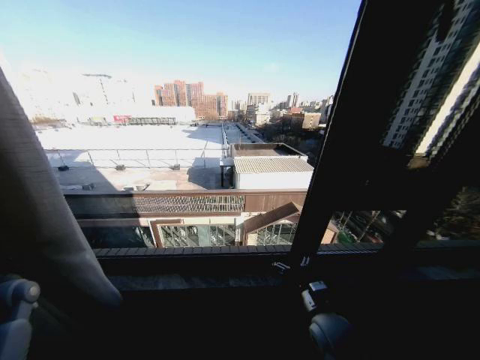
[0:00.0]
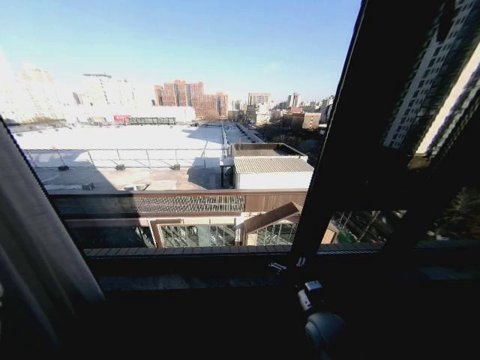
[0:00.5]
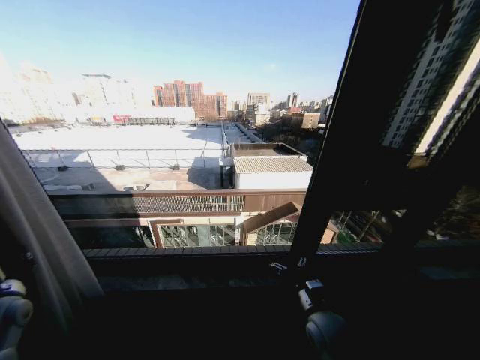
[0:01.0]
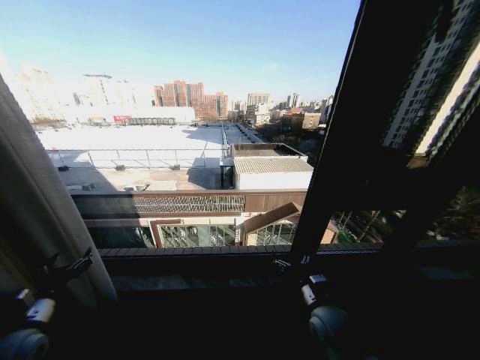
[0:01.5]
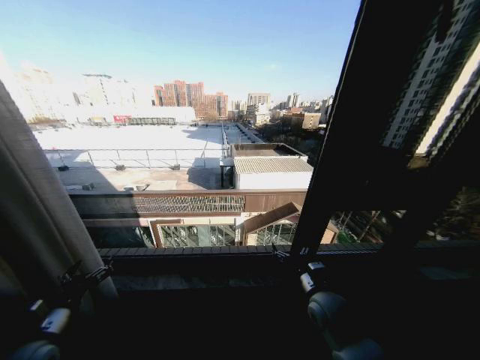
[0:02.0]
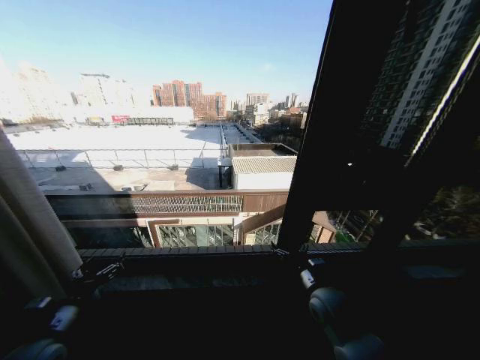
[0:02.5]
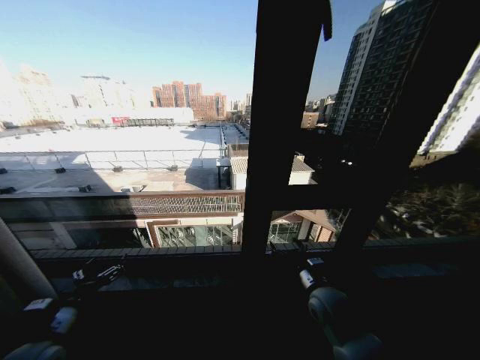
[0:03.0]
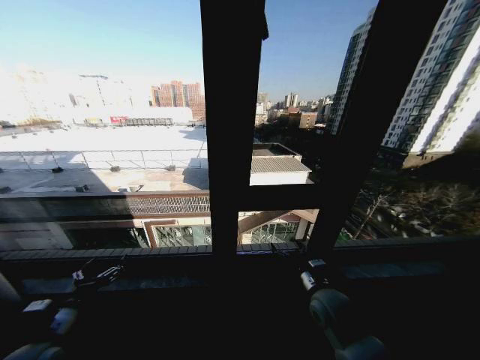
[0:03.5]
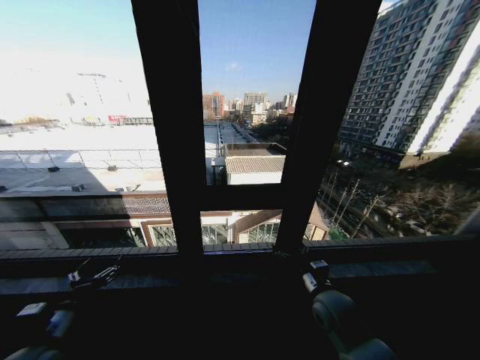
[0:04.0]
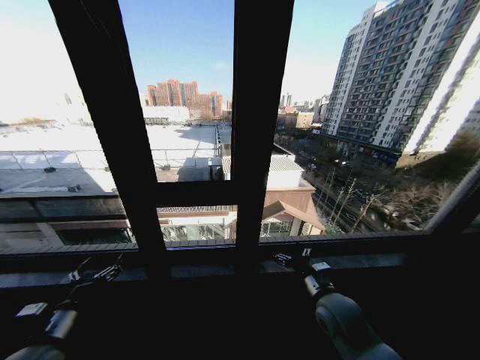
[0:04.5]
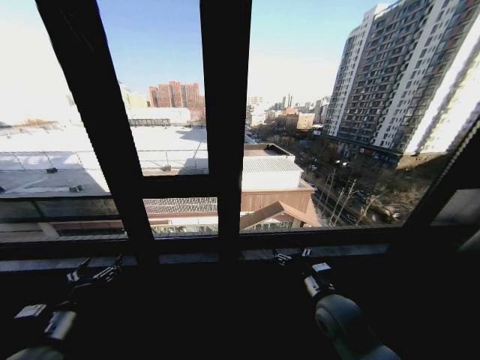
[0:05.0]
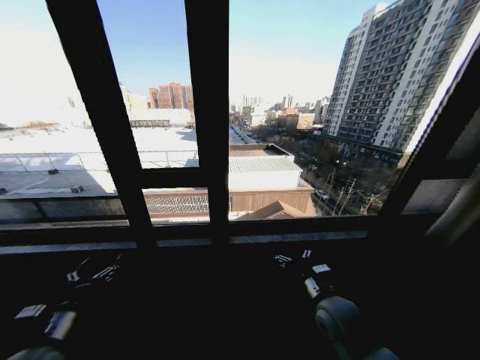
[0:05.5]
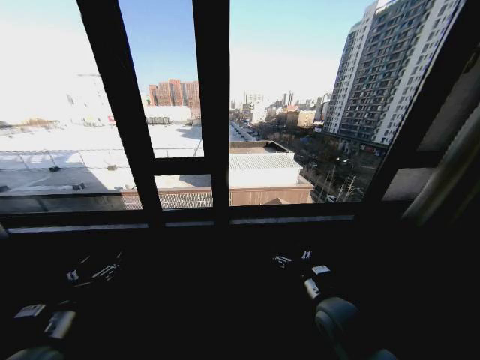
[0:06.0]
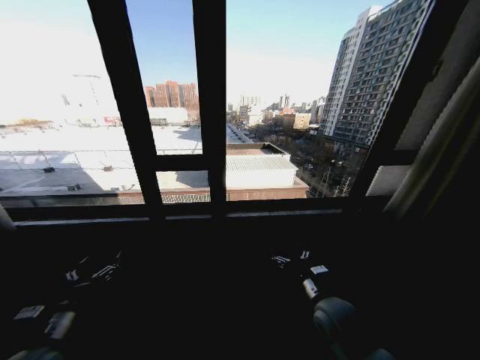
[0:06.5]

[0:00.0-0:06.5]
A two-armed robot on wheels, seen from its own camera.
Task of the whole recording: Open the curtains by pulling them apart, changing their state from closed to fully open.
0:00.0 to 0:02.0: The left gripper shifts roughly 20 cm to the right and backward, and opens.

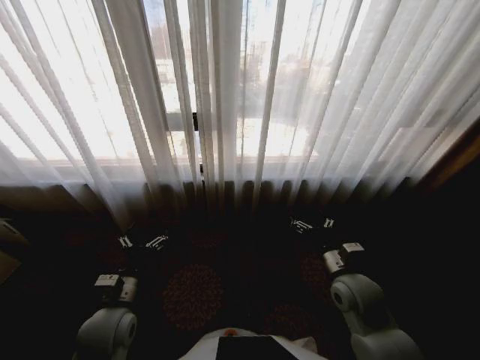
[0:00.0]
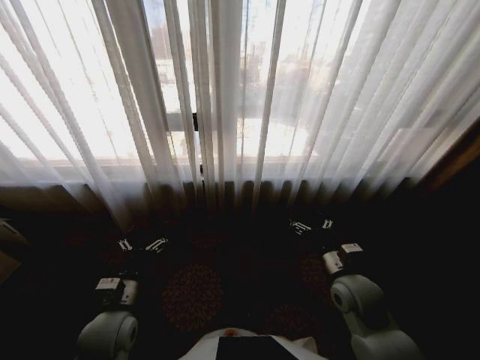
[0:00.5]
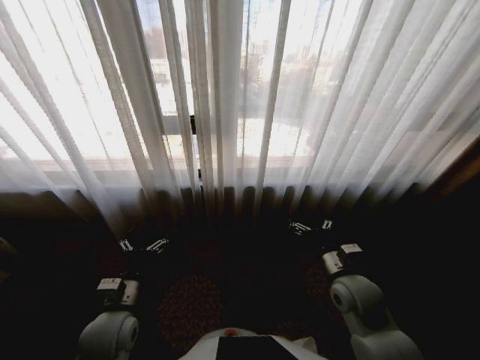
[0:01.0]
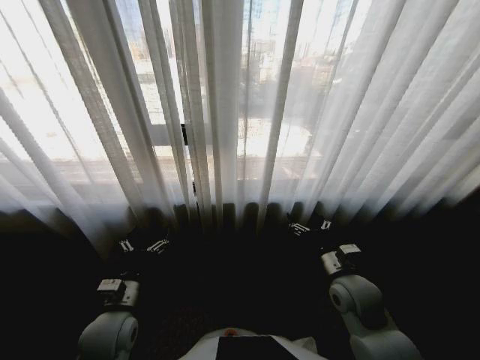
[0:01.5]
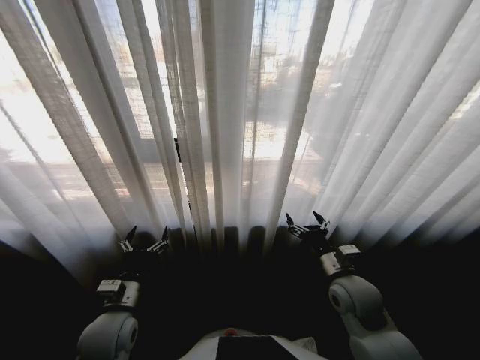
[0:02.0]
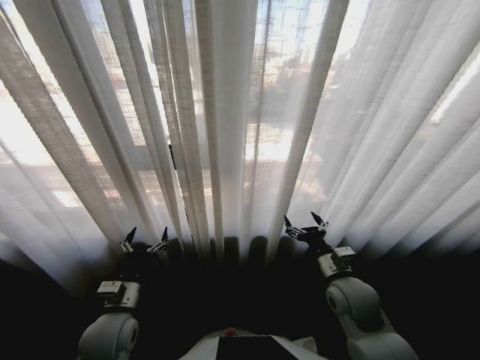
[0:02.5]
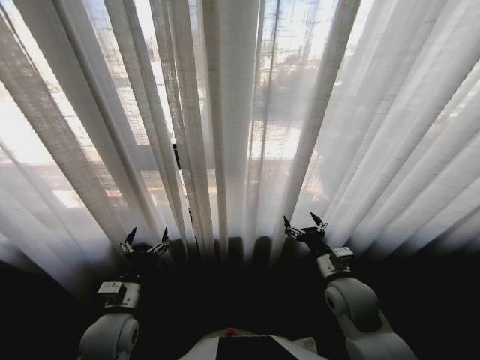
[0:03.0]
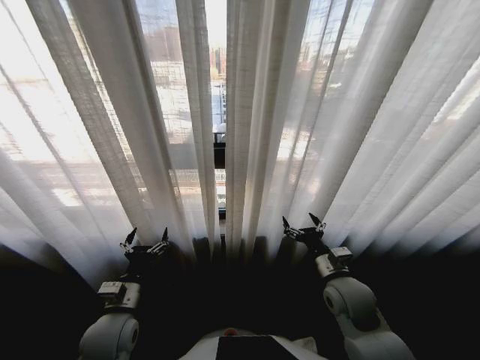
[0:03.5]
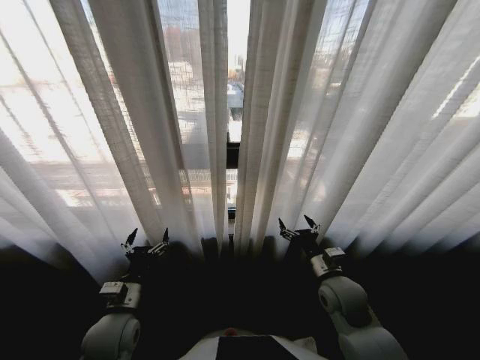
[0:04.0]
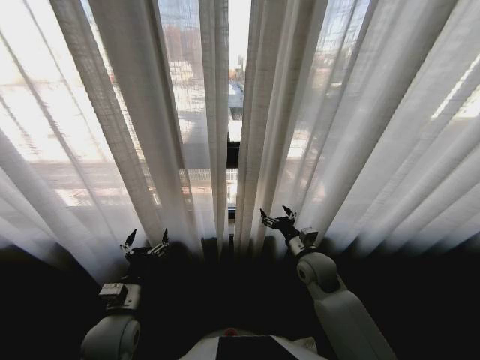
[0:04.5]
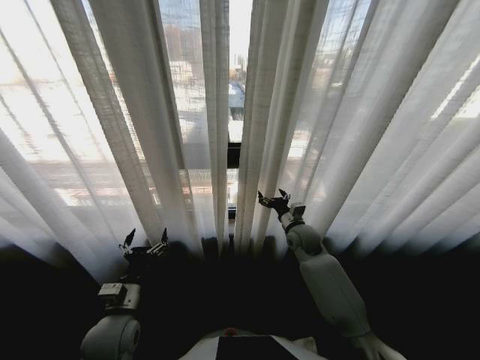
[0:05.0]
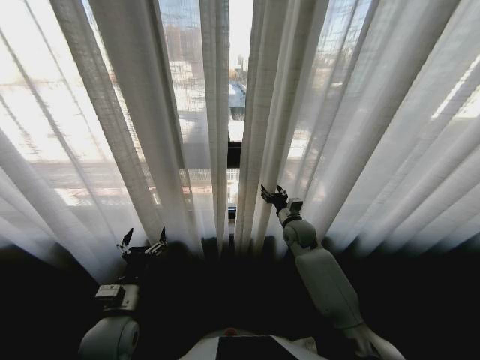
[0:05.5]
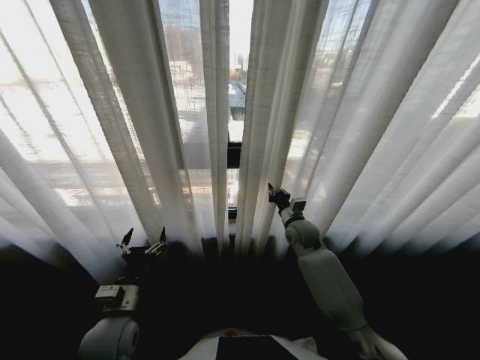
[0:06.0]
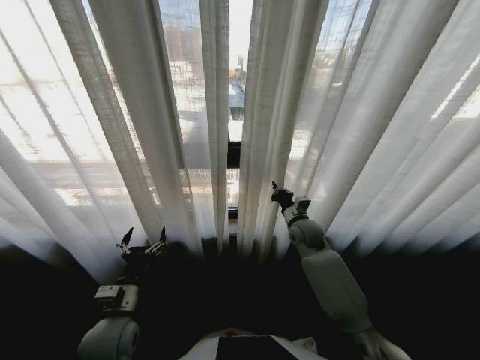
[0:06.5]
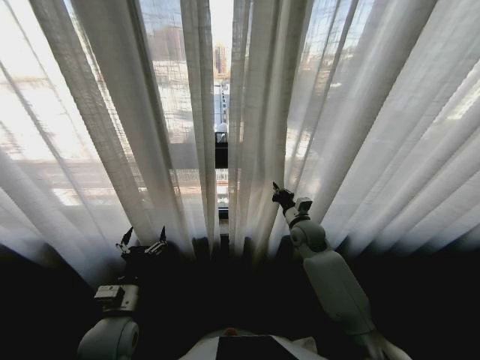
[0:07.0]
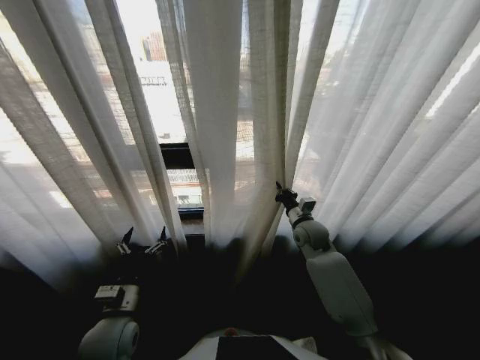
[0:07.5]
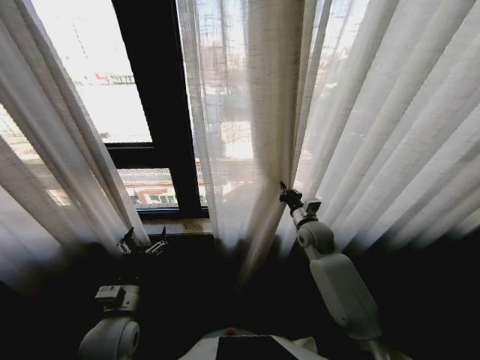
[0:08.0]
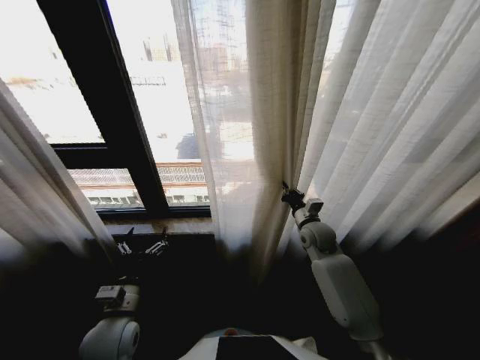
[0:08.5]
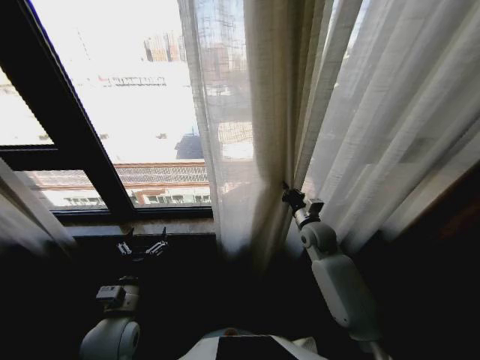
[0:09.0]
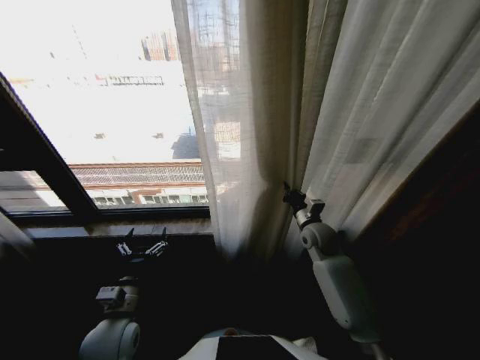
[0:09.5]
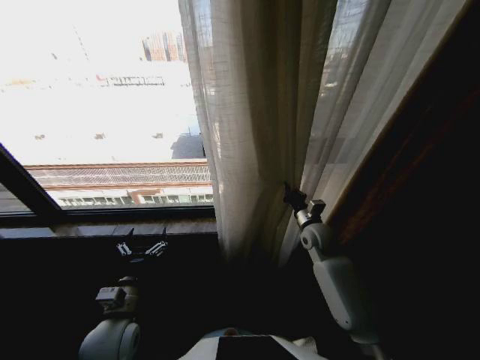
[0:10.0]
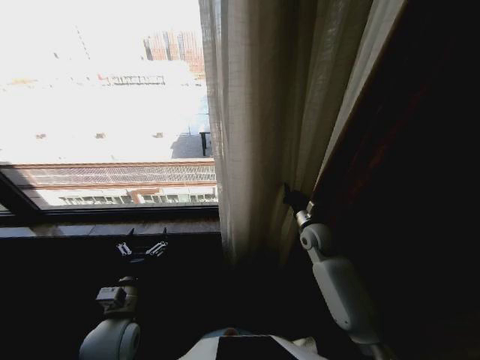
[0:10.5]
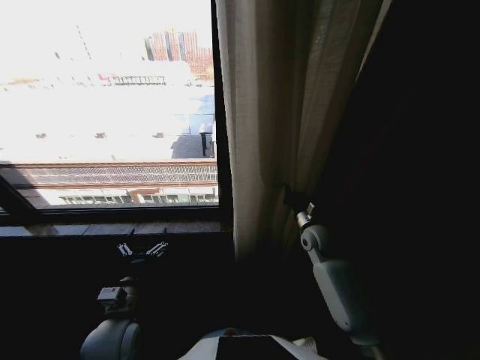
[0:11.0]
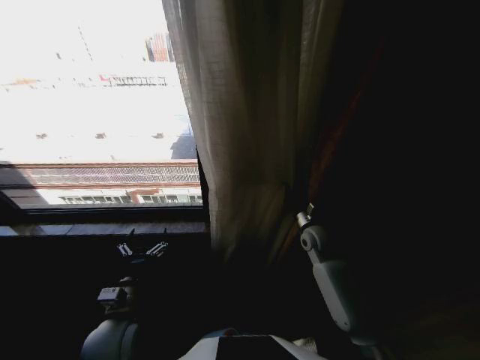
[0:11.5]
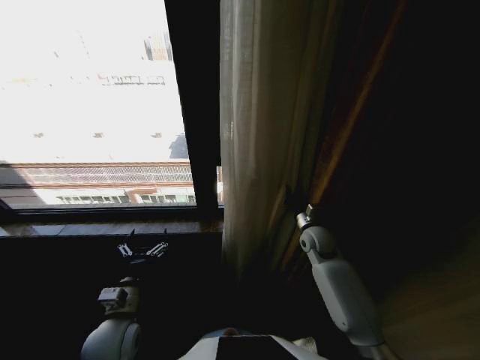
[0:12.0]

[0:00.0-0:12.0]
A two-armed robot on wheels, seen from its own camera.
Task of the whole recording: Open the curtains by pulling them apart, changing their state from closed to fully open.
0:04.0 to 0:06.0: The right gripper is displaced forward by some 20 cm, and closes up.

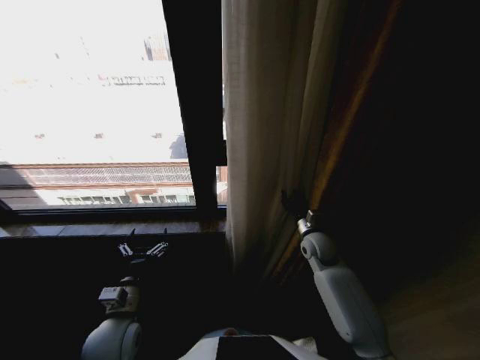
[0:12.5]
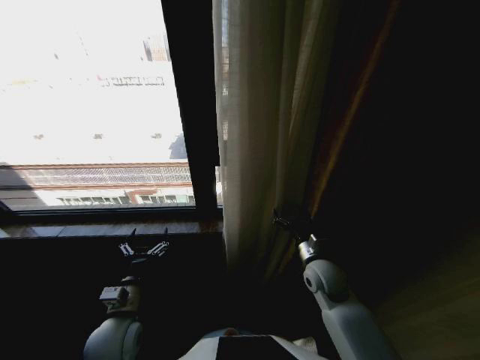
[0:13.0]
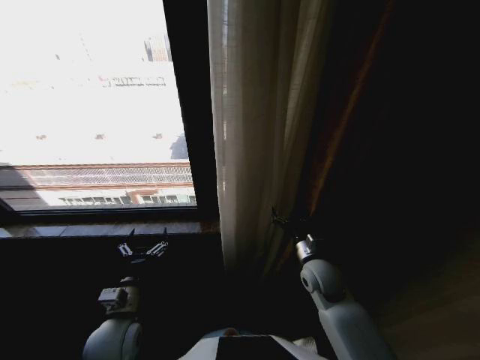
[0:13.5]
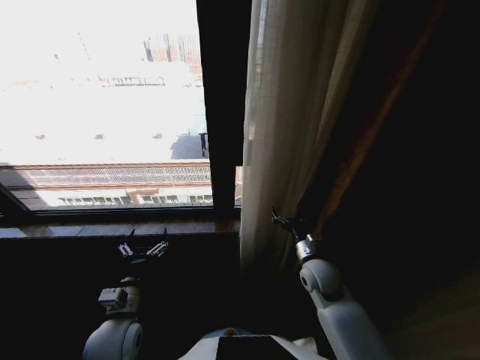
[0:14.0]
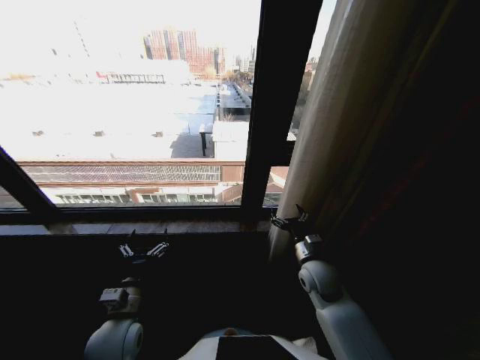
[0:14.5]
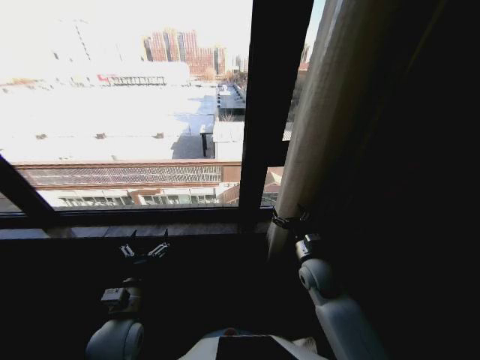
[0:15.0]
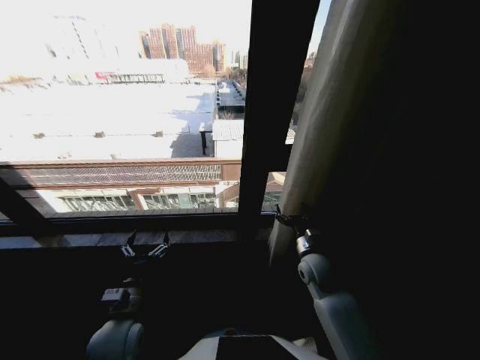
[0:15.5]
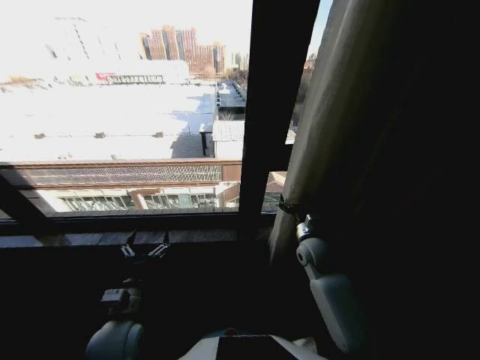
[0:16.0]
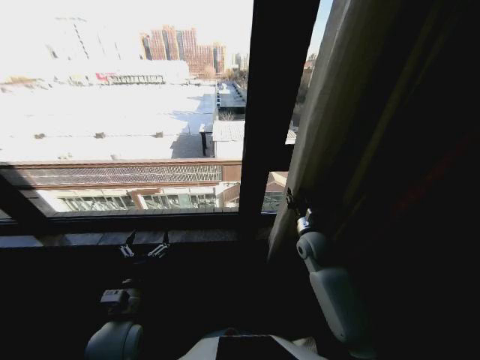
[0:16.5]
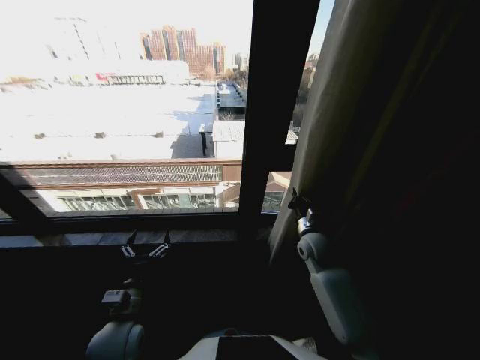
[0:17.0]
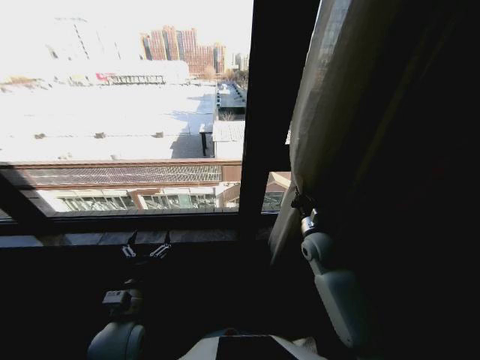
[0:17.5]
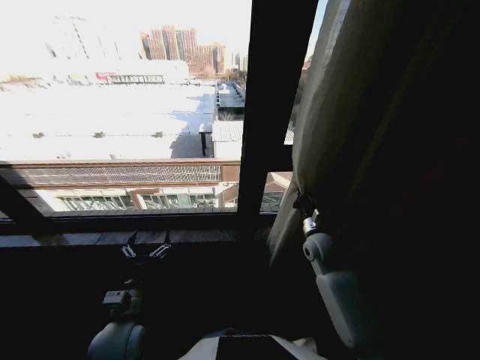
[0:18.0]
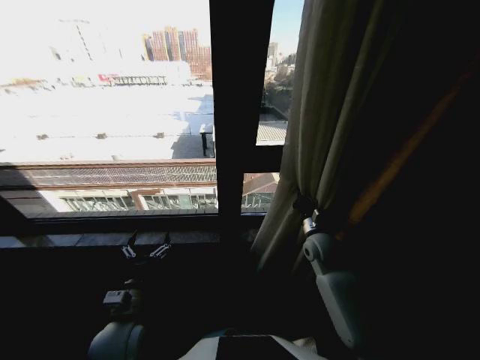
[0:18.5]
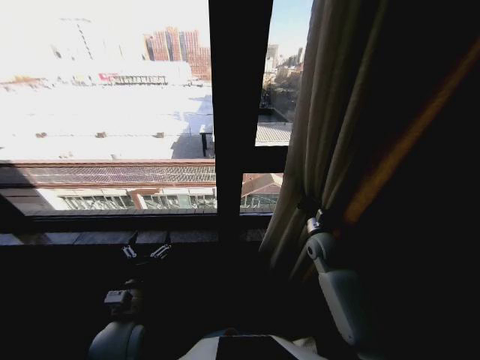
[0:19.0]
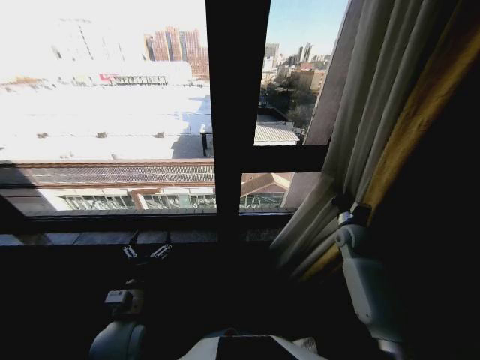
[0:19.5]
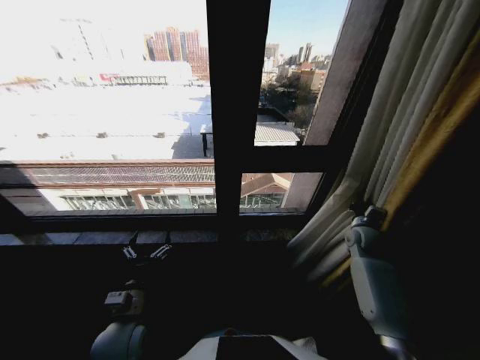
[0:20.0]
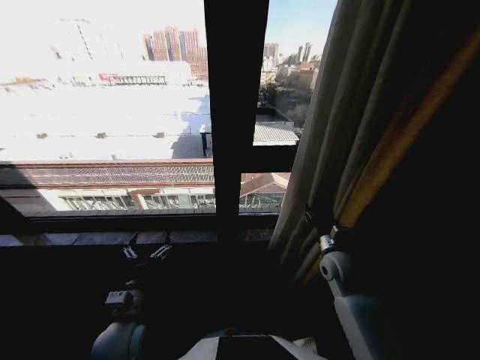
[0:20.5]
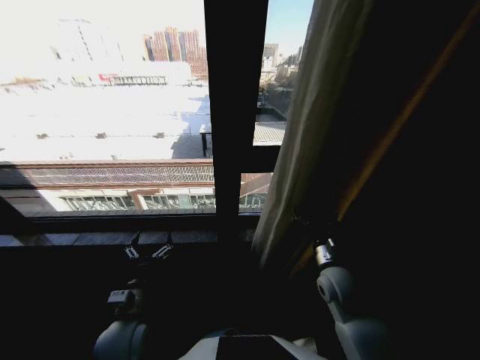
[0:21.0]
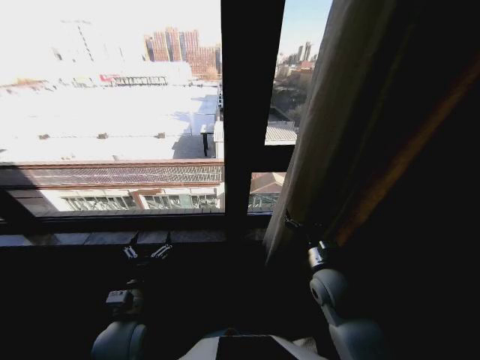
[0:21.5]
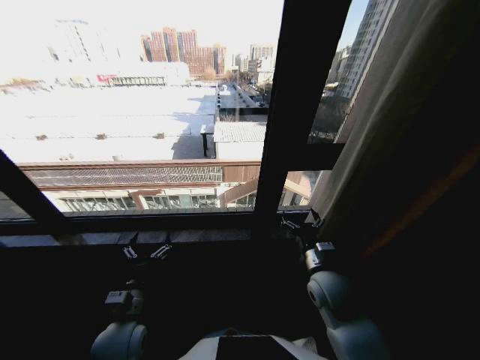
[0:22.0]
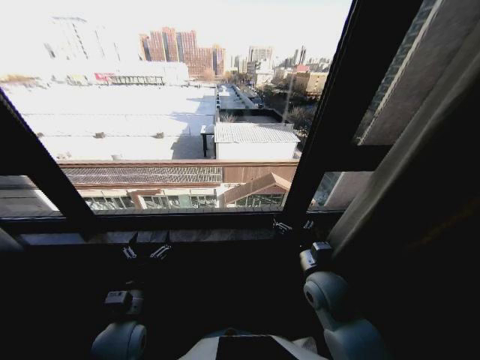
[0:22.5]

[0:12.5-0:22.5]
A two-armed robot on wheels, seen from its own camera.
Task of the whole recording: Open the curtains by pulling them apart, changing their state from closed to fully open.
0:12.5 to 0:14.5: The right gripper is displaced backward by roughly 10 cm, and opens its fingers.
0:14.5 to 0:16.5: The right gripper shifts some 10 cm forward, and closes up.
0:16.5 to 0:18.5: The right gripper closes.
0:18.5 to 0:20.5: The right gripper moves roughly 15 cm to the right and comes back, and opens.
0:20.5 to 0:22.5: The right gripper goes about 10 cm to the left and backward, and opens its fingers.
